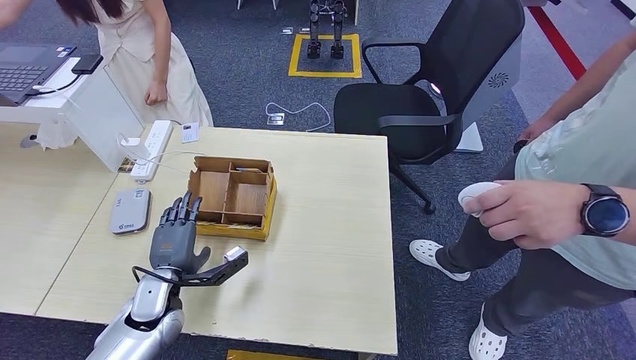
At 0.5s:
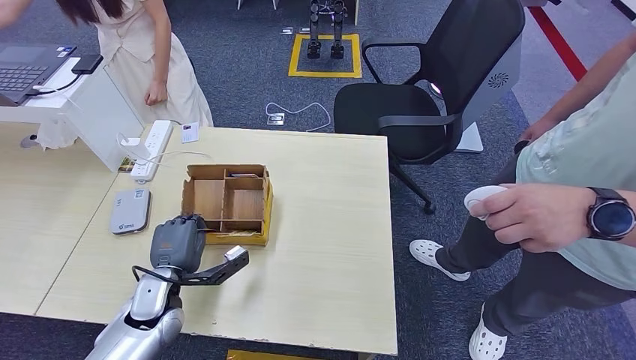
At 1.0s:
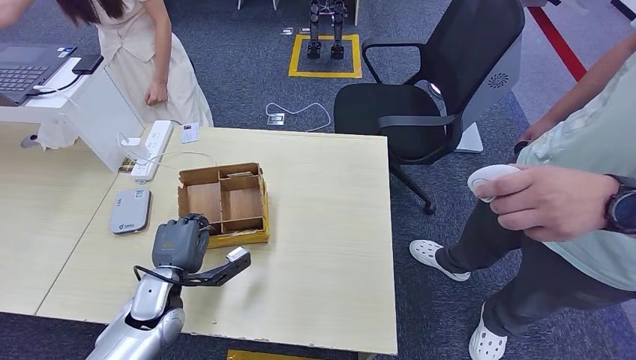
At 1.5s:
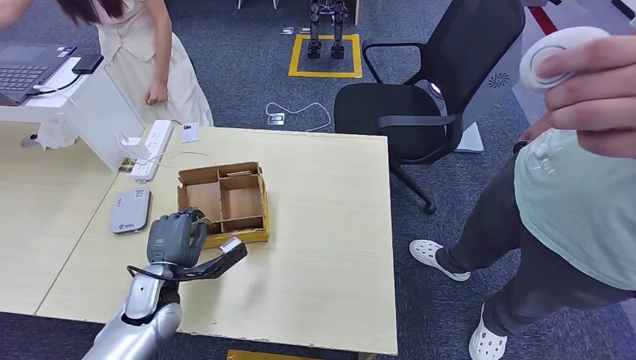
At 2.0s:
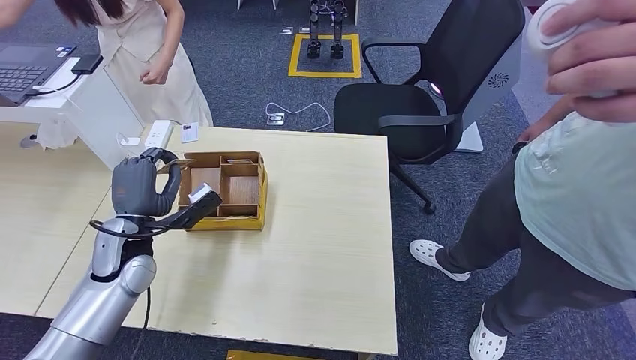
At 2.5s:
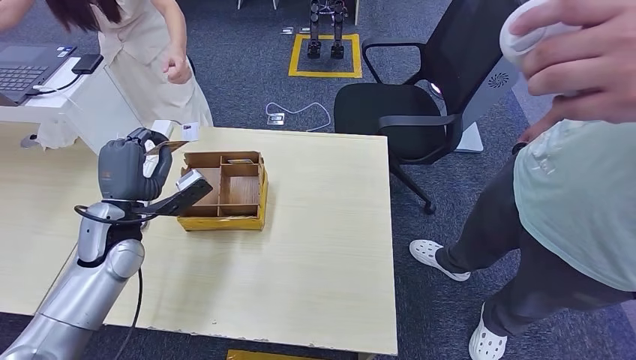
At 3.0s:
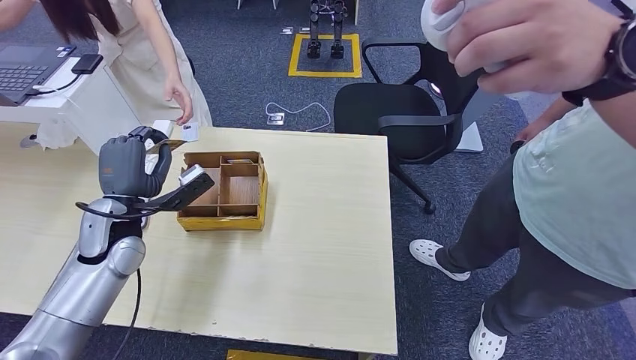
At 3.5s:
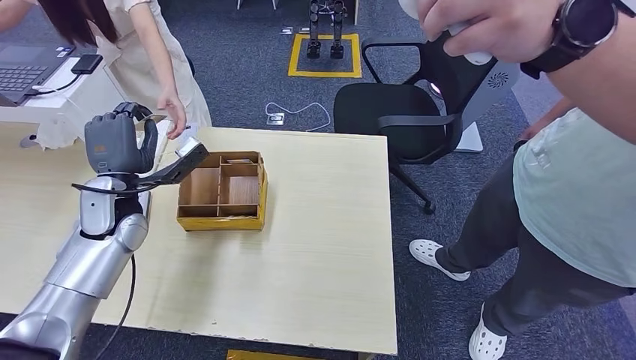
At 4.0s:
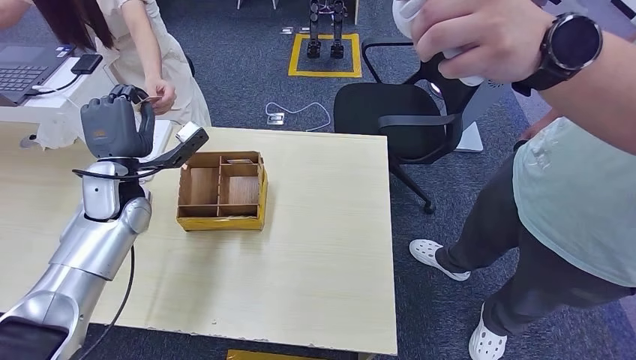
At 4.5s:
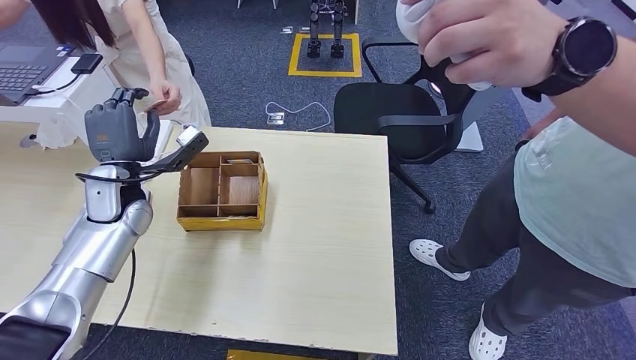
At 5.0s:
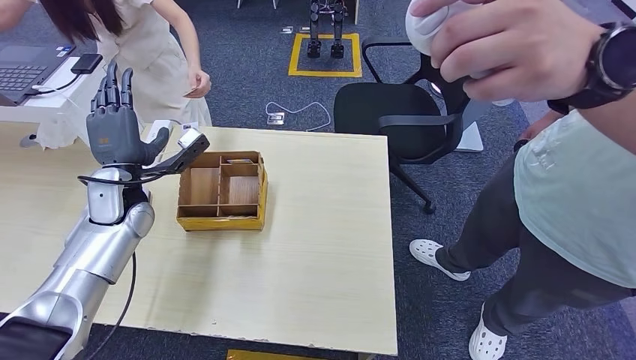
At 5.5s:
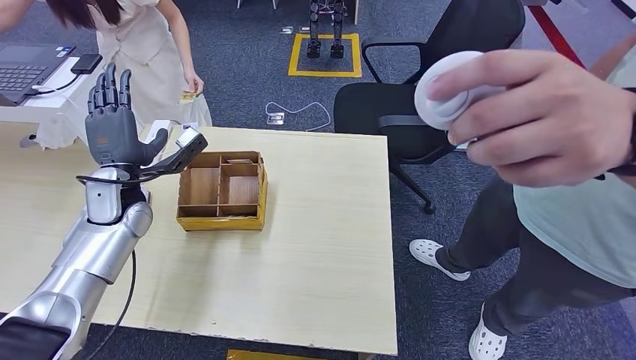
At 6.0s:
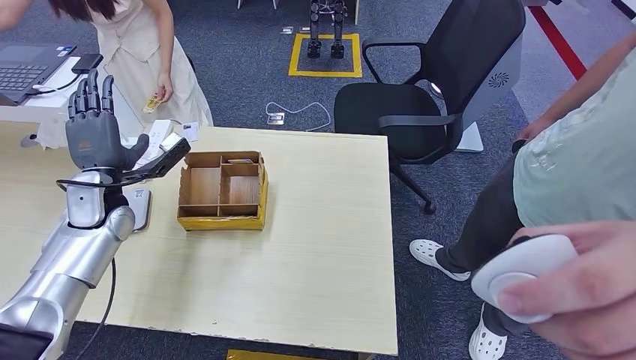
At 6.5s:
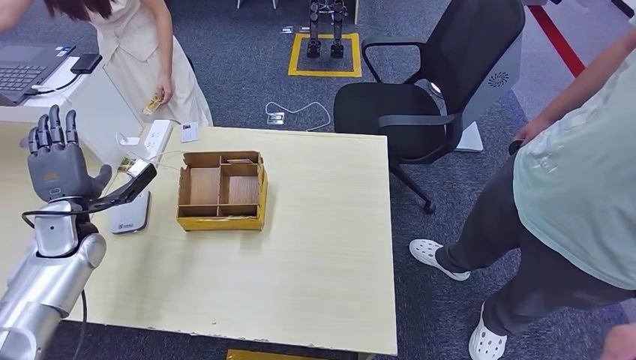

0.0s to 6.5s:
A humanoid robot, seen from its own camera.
Step, 2.0s to 6.5s: Hand the room key to the person.
0.0s to 2.0s: The left hand heads upward and forward, covering some 10 cm.
